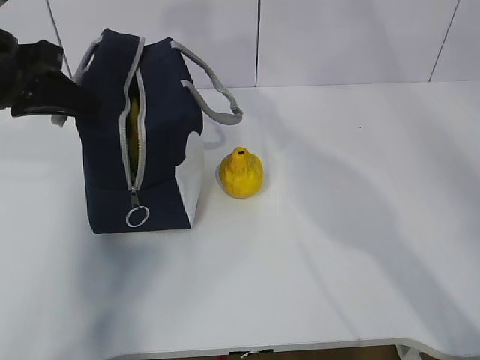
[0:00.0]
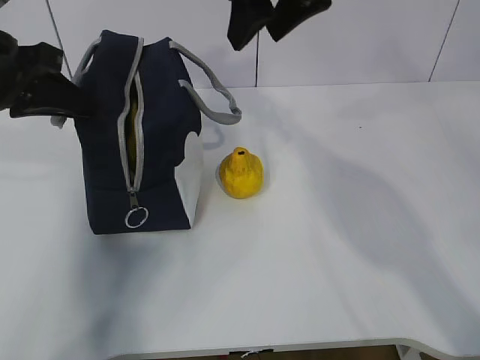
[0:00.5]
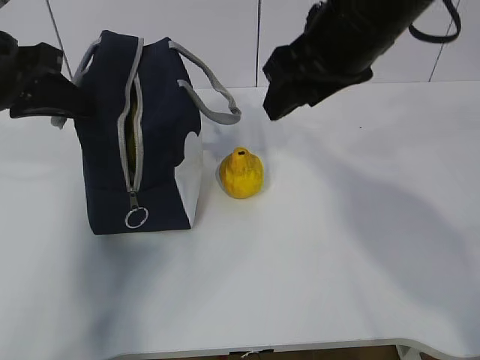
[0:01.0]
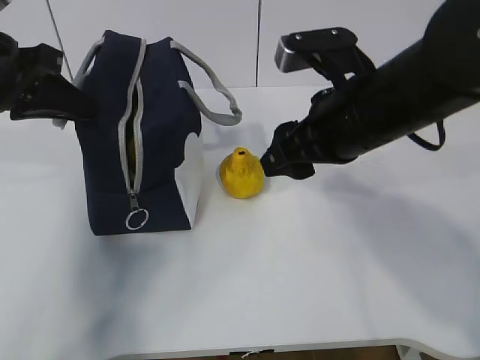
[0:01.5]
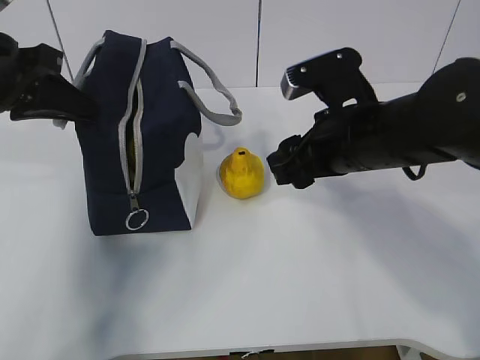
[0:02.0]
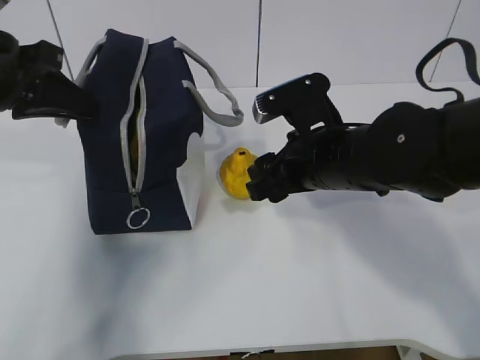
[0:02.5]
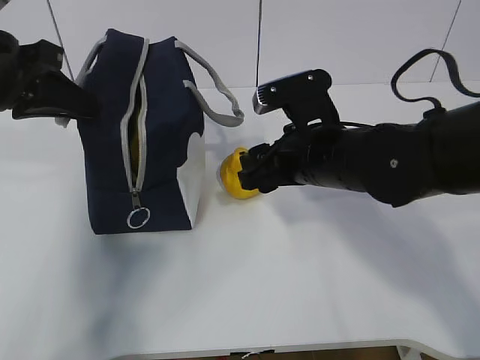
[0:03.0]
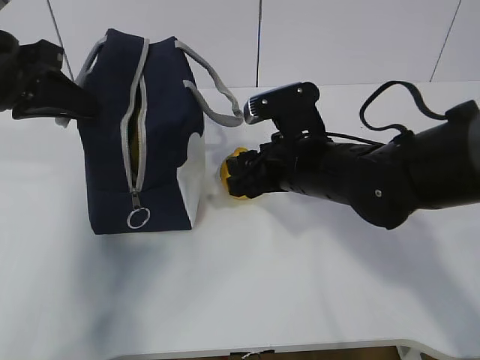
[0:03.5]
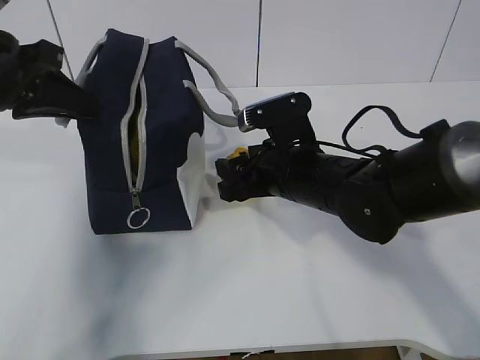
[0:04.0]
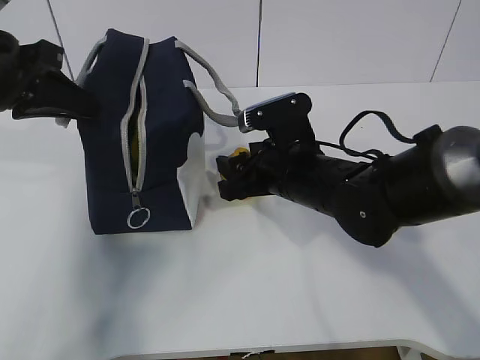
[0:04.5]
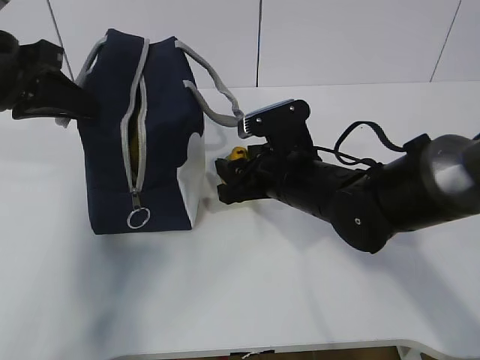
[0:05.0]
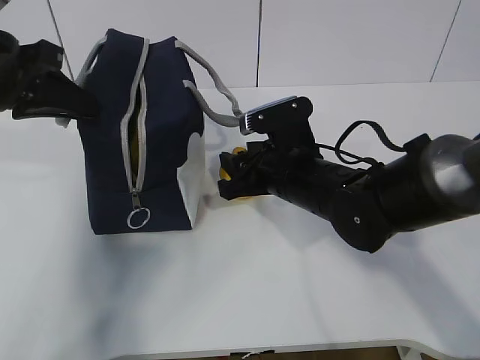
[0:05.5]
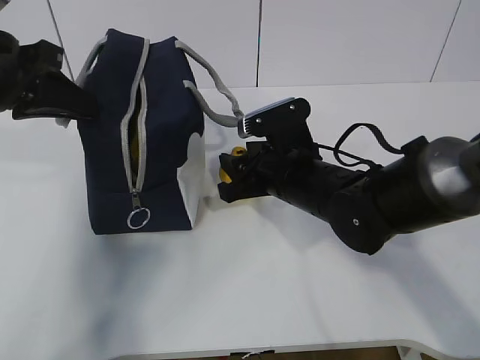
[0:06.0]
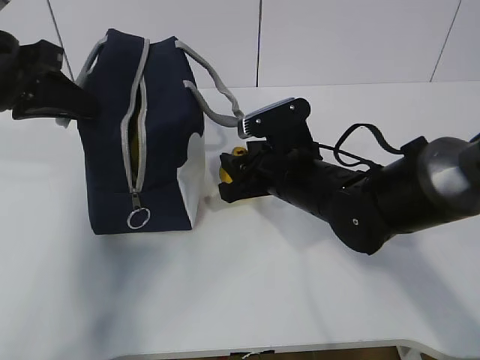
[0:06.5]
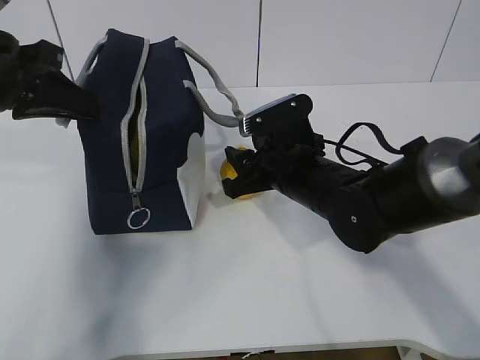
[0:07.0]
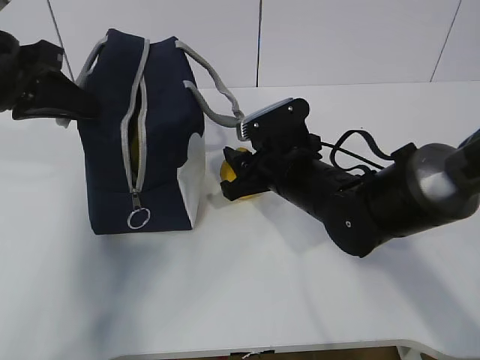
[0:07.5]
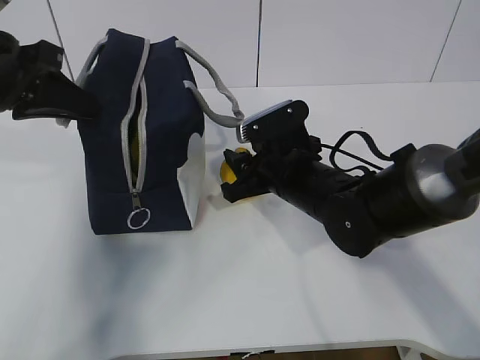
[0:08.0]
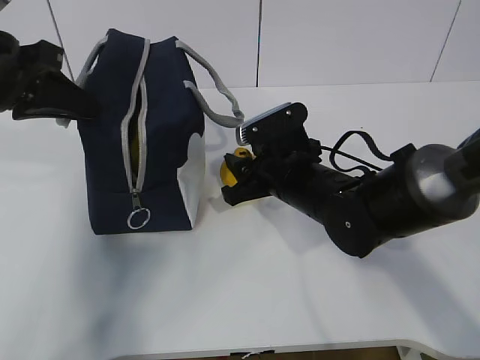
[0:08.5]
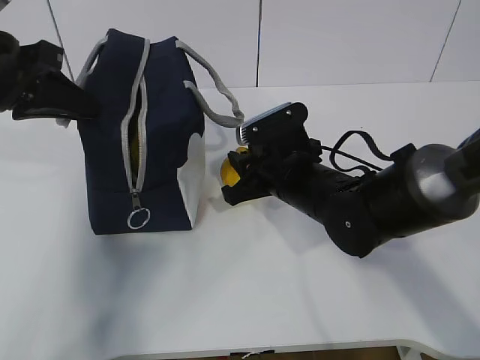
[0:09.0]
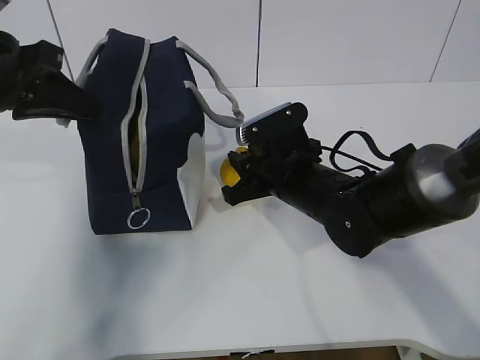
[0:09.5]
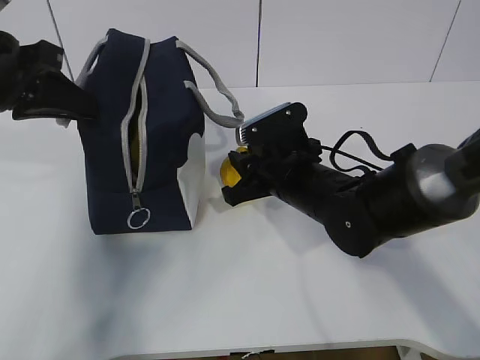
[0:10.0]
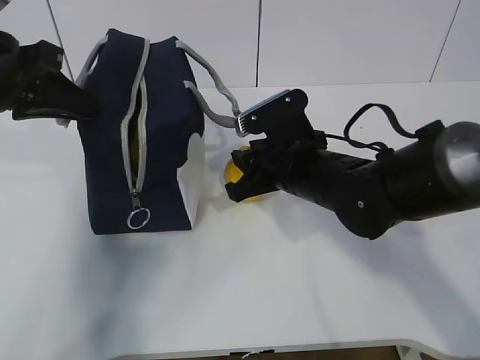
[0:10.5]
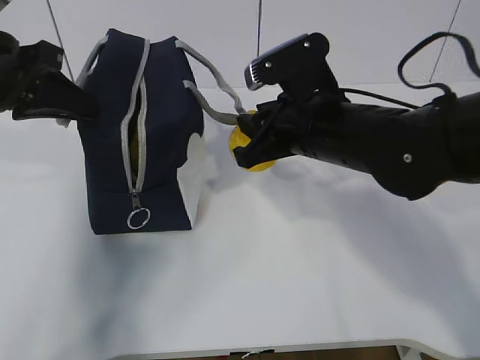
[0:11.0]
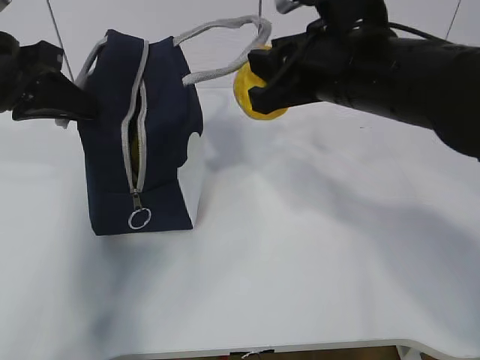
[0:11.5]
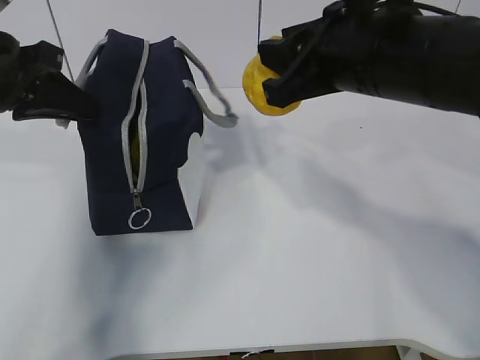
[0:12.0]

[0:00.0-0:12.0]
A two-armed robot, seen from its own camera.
Step, 0:00.0 to 0:02.5: Grab the pear with your right hand.
Step, 0:08.0 to 0:10.0: Grab the lunch bag with your right hand.
0:00.0 to 0:02.0: The right gripper shifts some 25 cm downward, backward and to the right.
0:02.0 to 0:04.0: The right gripper shifts about 5 cm downward.
0:04.0 to 0:08.0: The grippers stay close to where they were, moving slightly.
0:08.0 to 0:10.0: Neither gripper changes place.
0:10.0 to 0:12.0: The right gripper is displaced upward by about 20 cm.

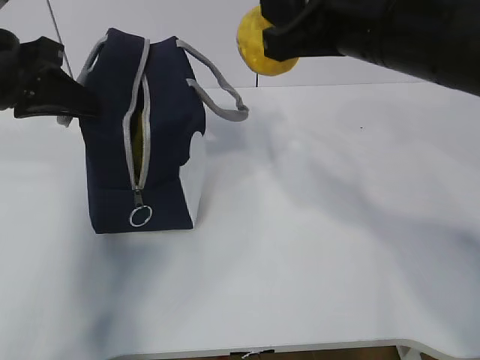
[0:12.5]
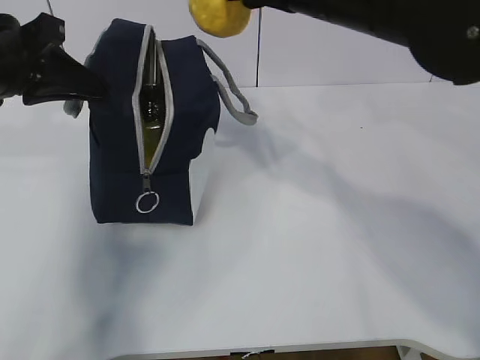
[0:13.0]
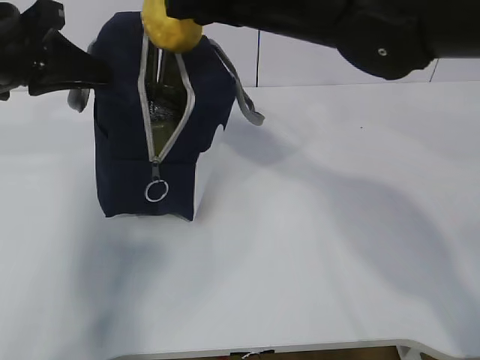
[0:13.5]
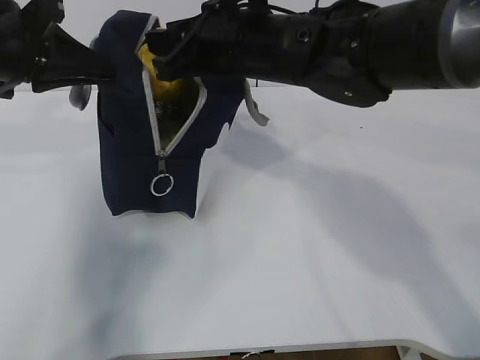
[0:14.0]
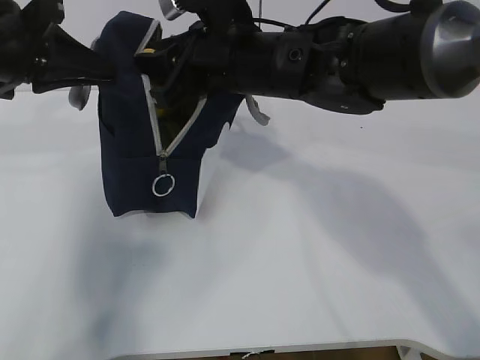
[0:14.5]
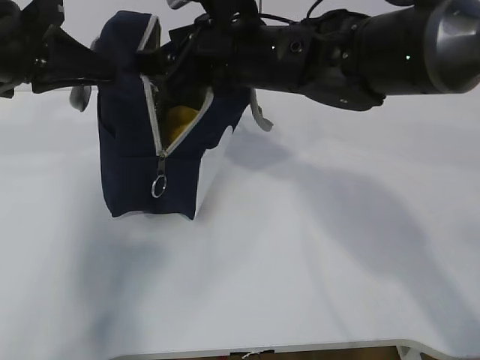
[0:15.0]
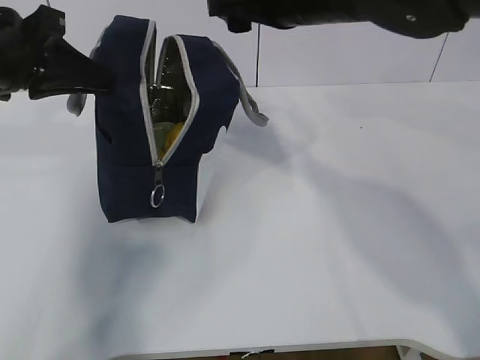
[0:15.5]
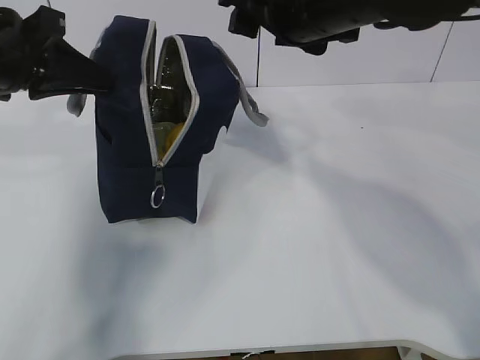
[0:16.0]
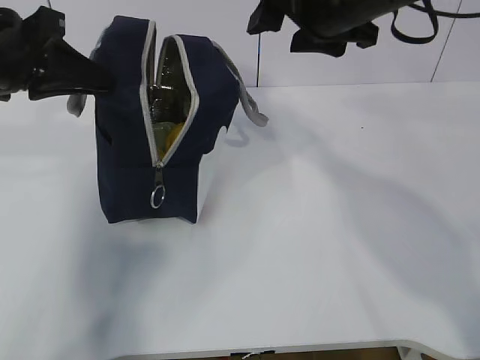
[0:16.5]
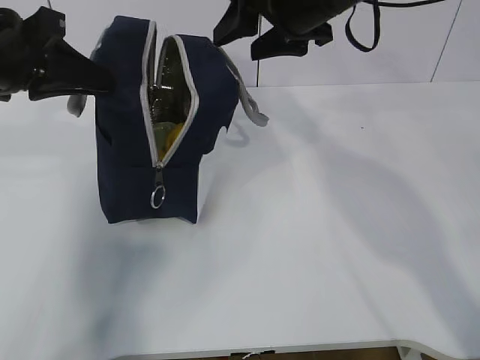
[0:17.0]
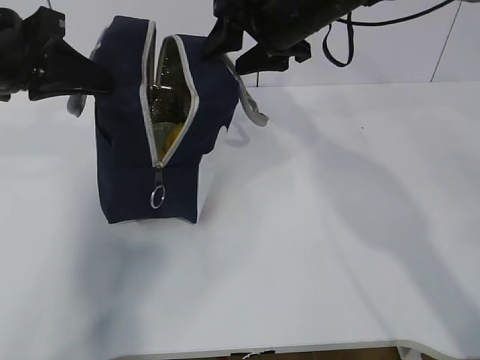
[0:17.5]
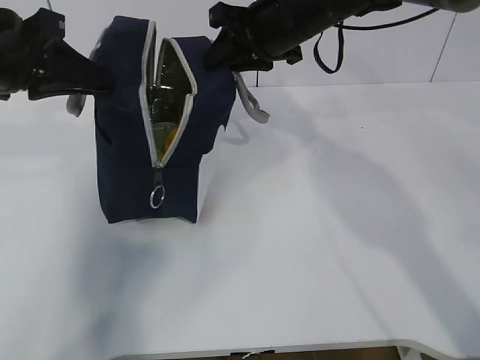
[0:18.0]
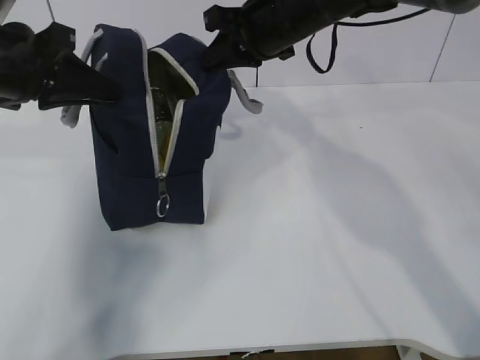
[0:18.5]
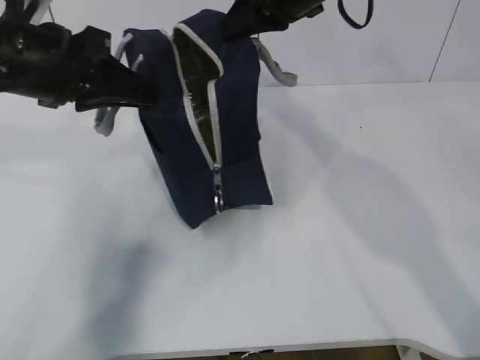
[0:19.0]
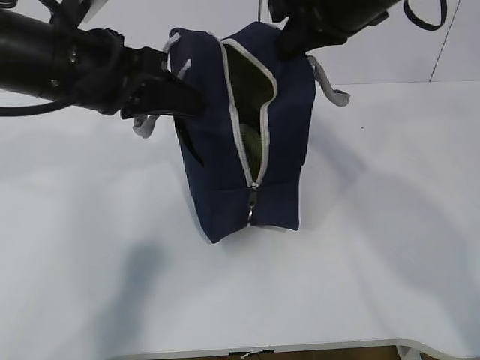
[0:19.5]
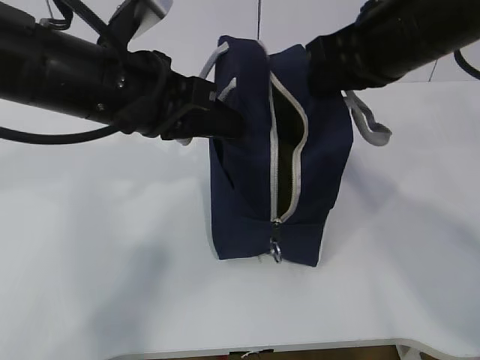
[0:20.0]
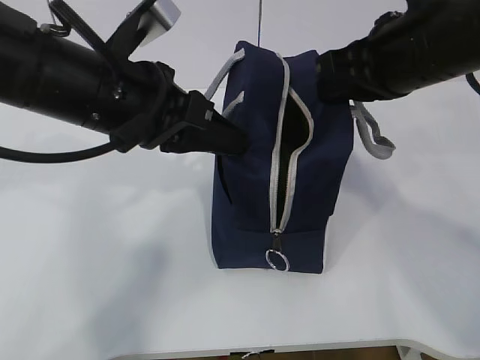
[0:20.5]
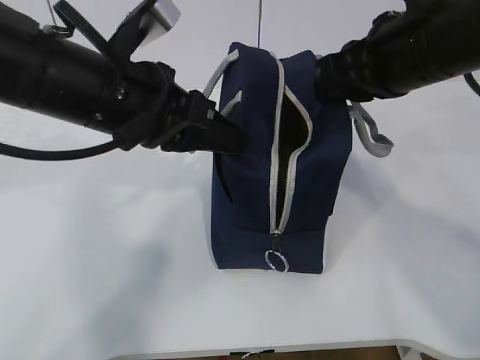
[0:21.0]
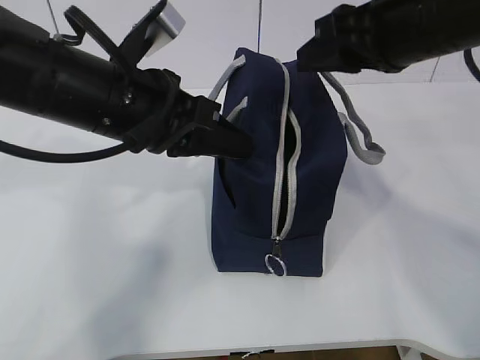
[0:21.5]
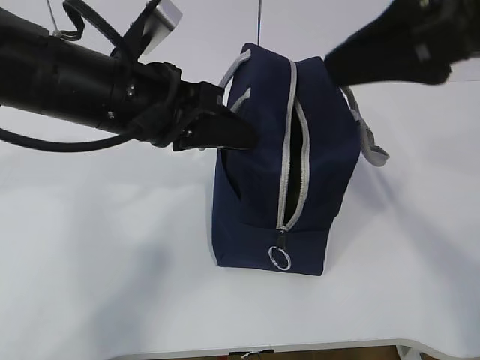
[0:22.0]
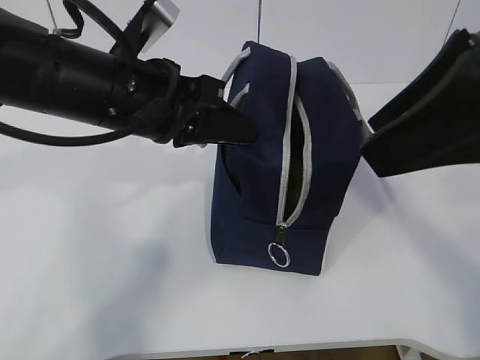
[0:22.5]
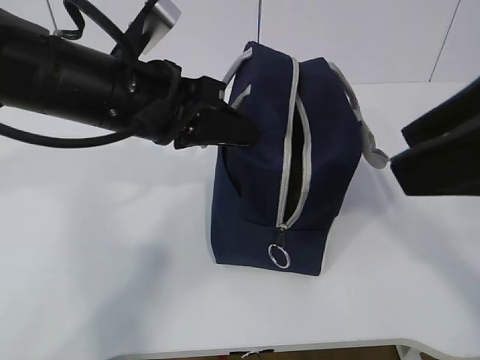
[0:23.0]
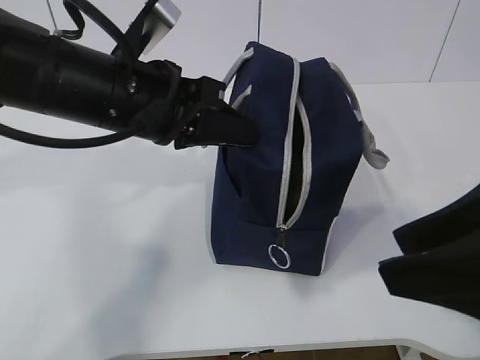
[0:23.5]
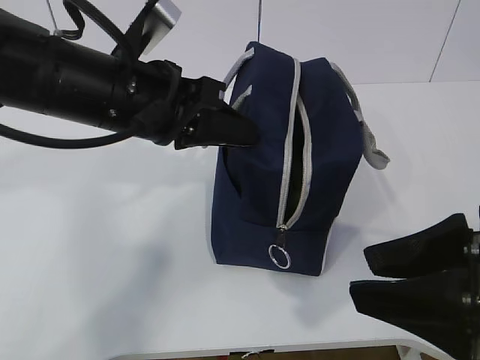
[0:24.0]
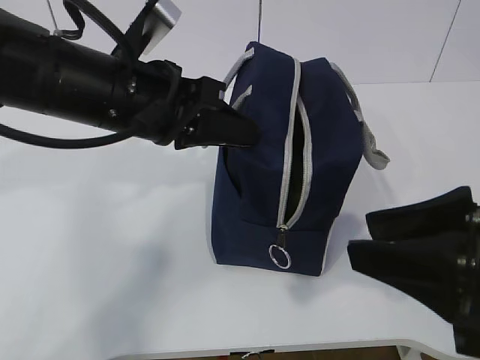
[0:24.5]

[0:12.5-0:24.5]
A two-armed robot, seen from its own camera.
0:12.5 to 0:14.5: The right gripper goes roughly 15 cm to the left, forward and downward.
0:14.5 to 0:16.5: The right gripper goes roughly 10 cm to the right and upward, and opens its fingers.
0:16.5 to 0:18.5: The right gripper heads forward, covering approximately 10 cm, and closes its fingers.
0:18.5 to 0:20.5: The left gripper moves to the right and backward, approximately 15 cm. The right gripper is displaced backward and to the right by roughly 15 cm.
0:20.5 to 0:22.5: The right gripper travels backward and upward by about 15 cm, and opens up.
0:22.5 to 0:24.5: The right gripper is displaced downward by roughly 10 cm.

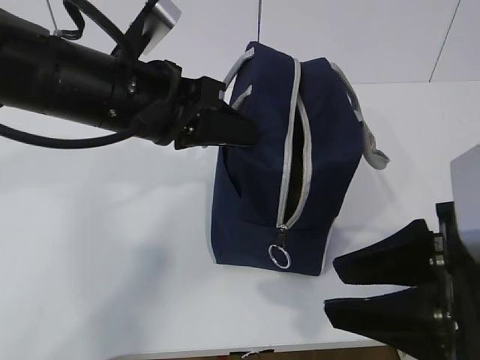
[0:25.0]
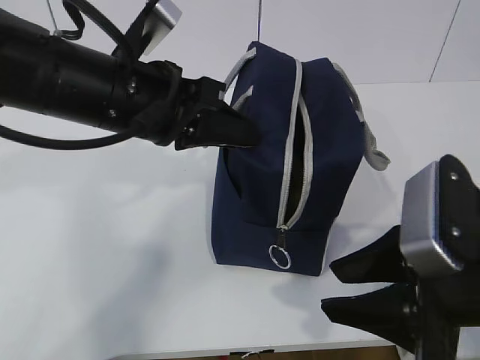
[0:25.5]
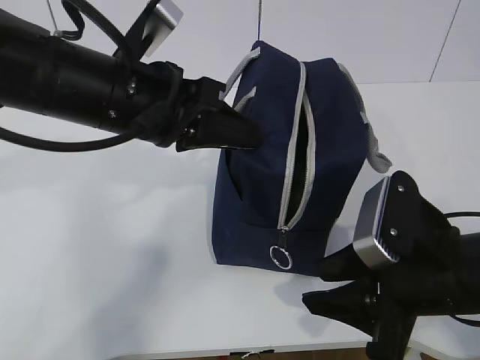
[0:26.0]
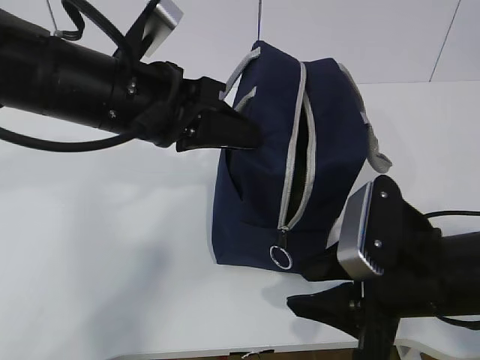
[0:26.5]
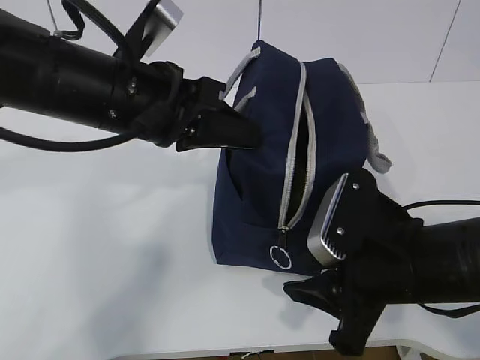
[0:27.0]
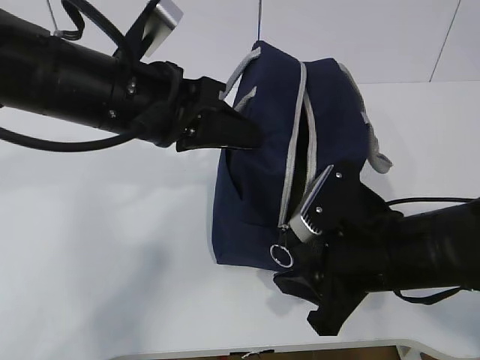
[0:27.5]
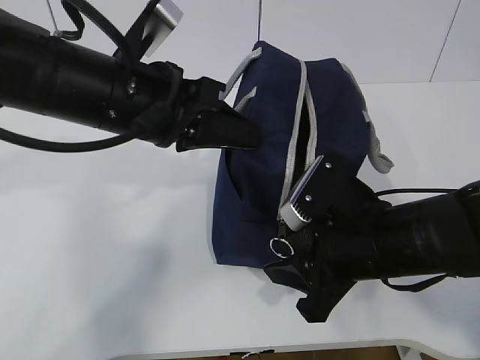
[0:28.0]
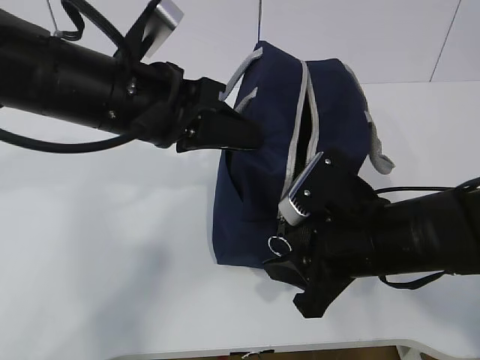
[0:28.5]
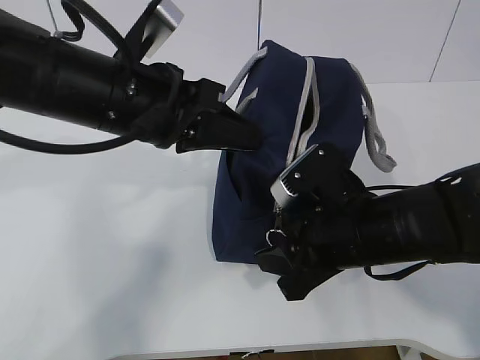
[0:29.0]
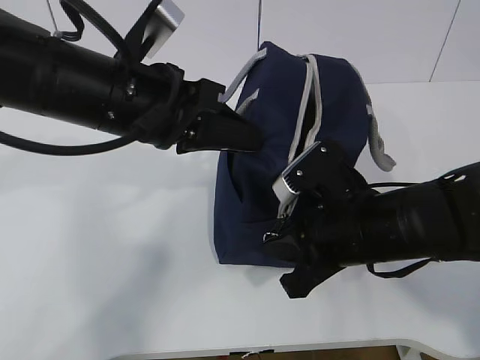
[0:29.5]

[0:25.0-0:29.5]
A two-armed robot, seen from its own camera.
0:25.0 to 0:27.0: The right gripper moves downward and forward, about 10 cm.
0:27.0 to 0:29.5: The right gripper closes up.
